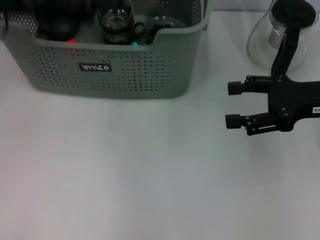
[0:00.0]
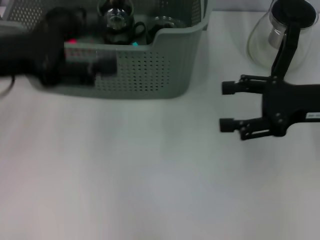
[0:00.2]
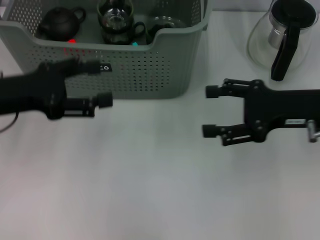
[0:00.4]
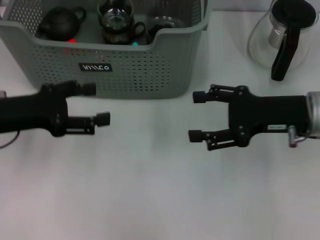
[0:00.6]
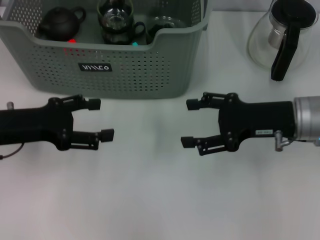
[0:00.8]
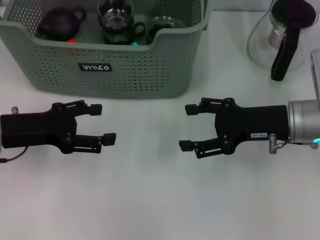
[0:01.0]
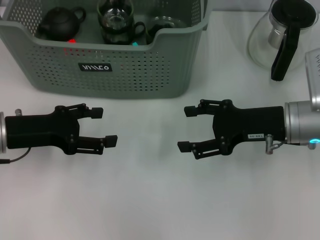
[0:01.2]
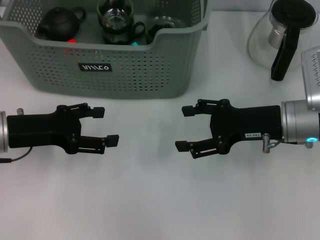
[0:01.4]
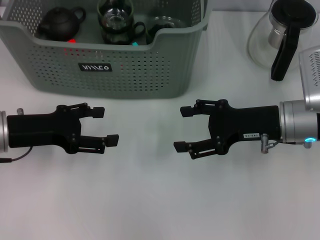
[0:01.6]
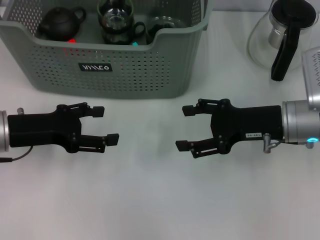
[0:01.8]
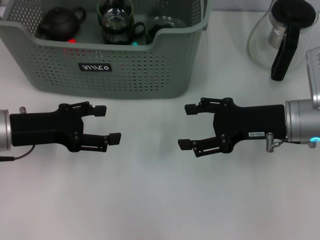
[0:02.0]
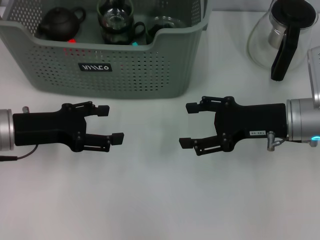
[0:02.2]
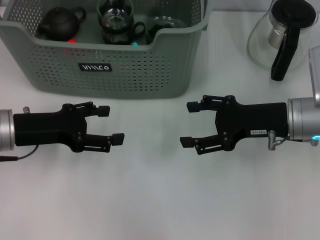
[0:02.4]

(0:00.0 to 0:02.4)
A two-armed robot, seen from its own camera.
Task of the whole recording: pick up the teacup on the table and place it into the storage bin, pick up the block on the table and place it into the storage bin.
0:00.0 - 0:01.2: The left gripper goes roughly 15 cm downward, while the right gripper moves downward and to the left, approximately 10 cm.
0:01.2 - 0:02.4: Both grippers stay put.

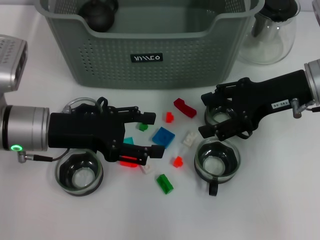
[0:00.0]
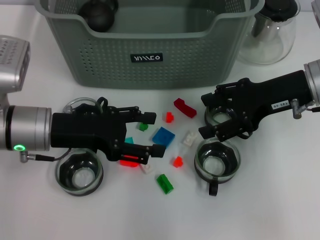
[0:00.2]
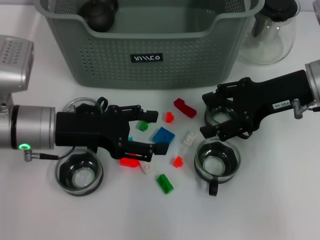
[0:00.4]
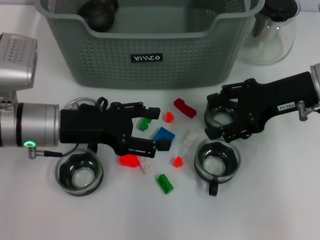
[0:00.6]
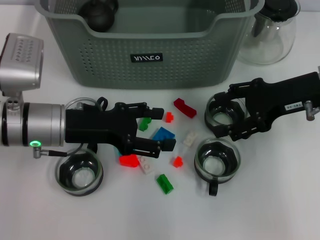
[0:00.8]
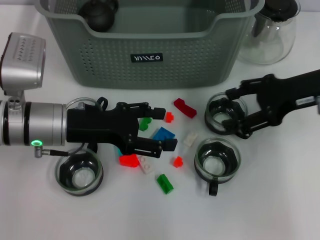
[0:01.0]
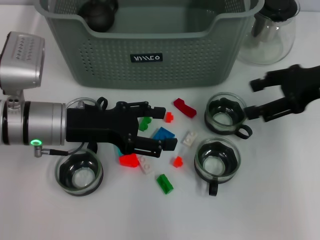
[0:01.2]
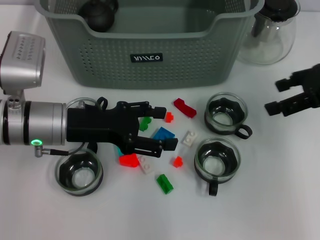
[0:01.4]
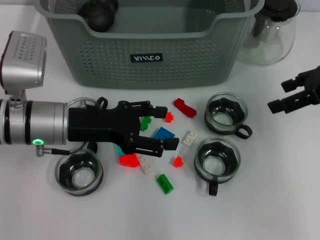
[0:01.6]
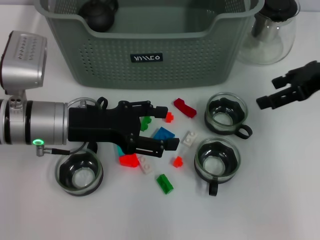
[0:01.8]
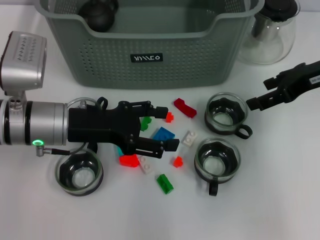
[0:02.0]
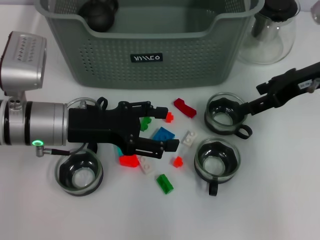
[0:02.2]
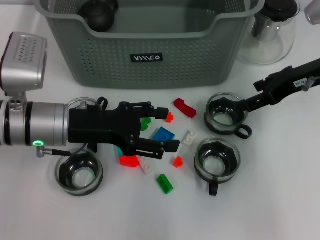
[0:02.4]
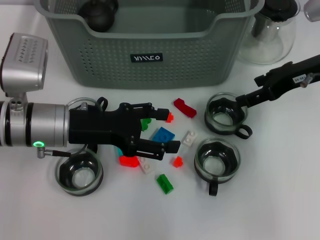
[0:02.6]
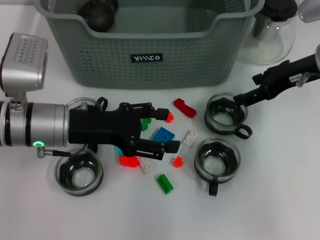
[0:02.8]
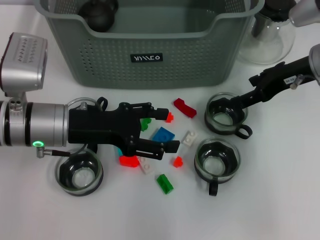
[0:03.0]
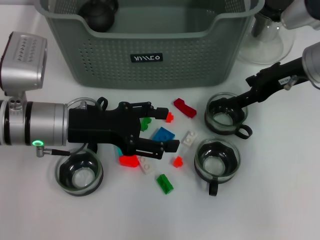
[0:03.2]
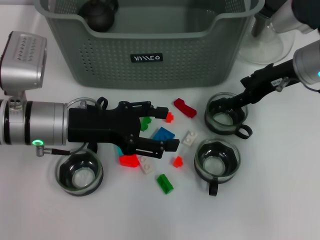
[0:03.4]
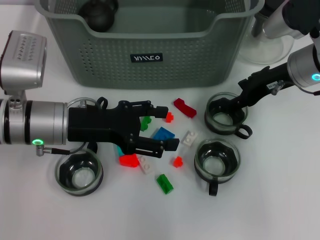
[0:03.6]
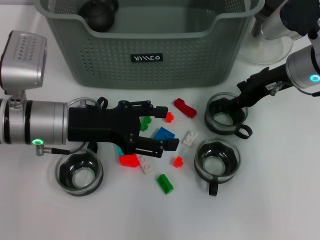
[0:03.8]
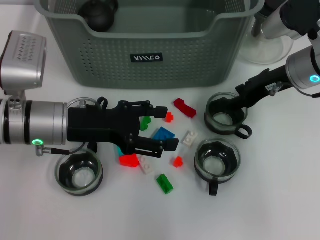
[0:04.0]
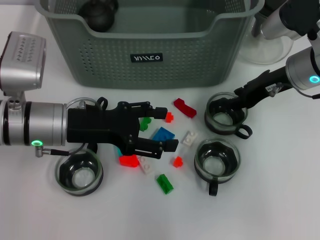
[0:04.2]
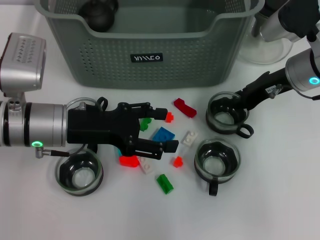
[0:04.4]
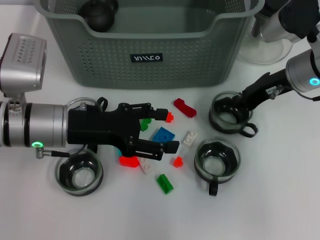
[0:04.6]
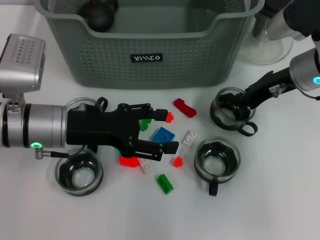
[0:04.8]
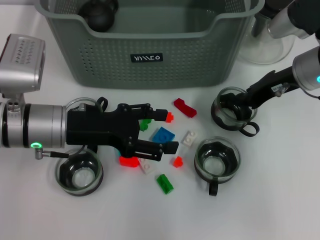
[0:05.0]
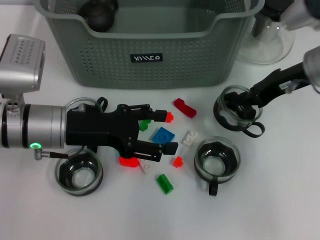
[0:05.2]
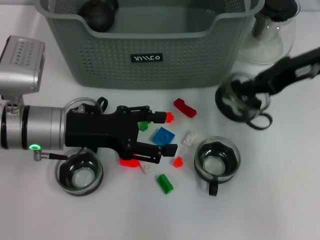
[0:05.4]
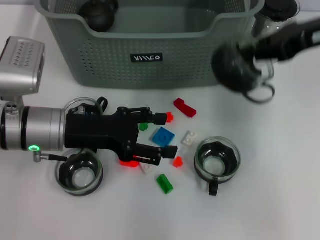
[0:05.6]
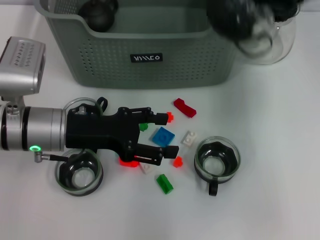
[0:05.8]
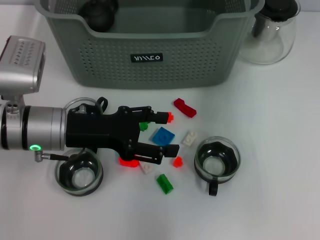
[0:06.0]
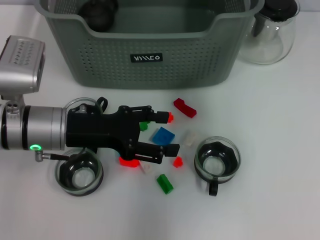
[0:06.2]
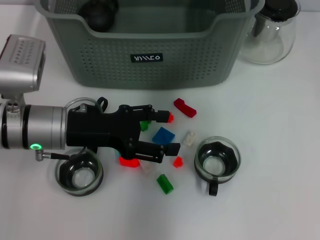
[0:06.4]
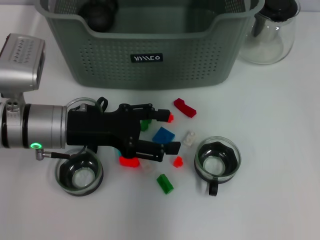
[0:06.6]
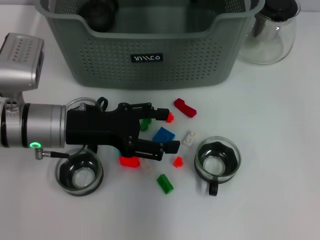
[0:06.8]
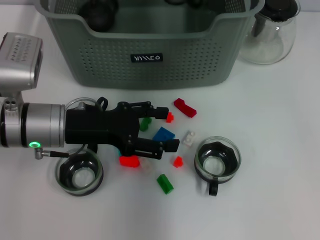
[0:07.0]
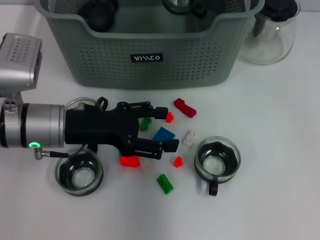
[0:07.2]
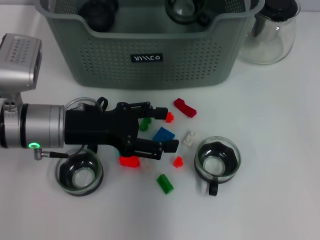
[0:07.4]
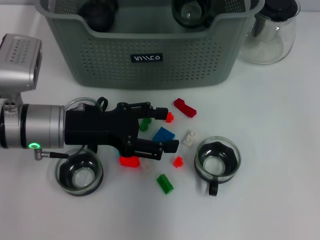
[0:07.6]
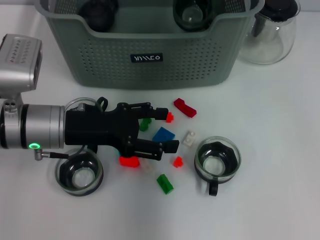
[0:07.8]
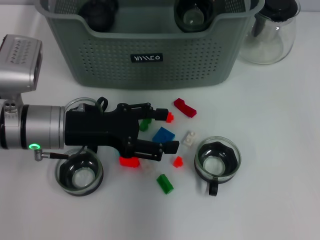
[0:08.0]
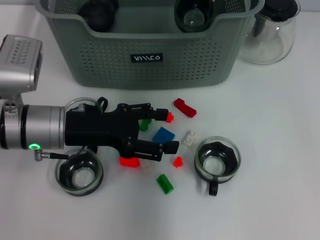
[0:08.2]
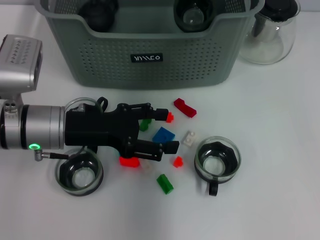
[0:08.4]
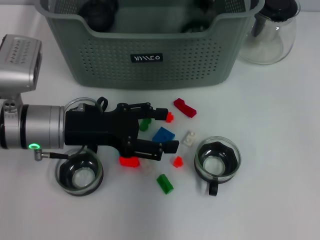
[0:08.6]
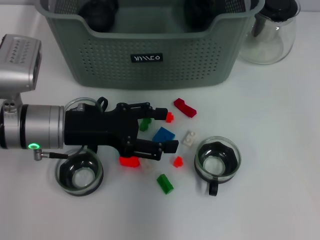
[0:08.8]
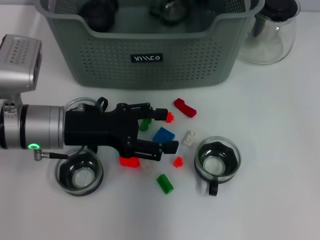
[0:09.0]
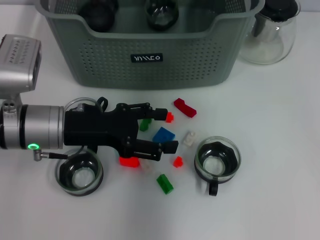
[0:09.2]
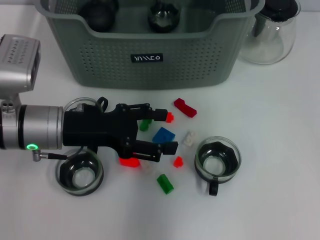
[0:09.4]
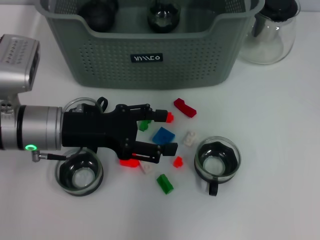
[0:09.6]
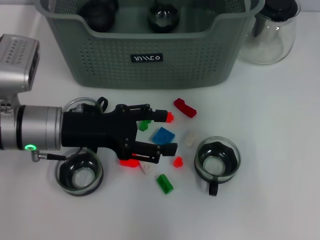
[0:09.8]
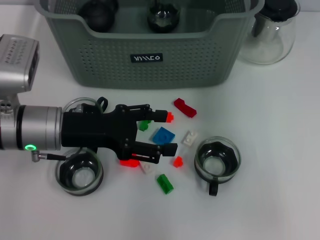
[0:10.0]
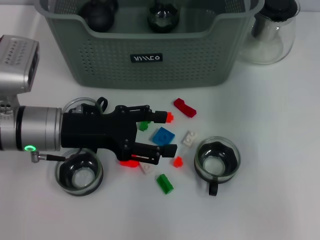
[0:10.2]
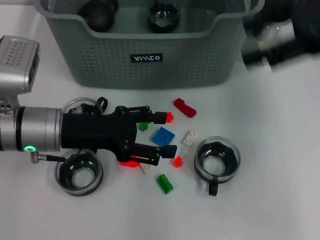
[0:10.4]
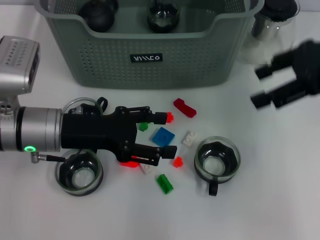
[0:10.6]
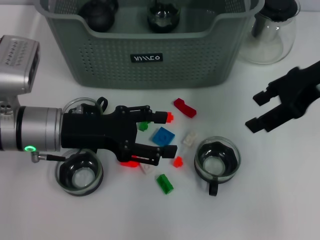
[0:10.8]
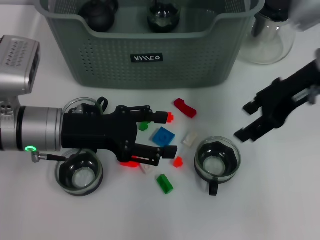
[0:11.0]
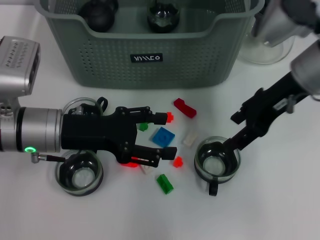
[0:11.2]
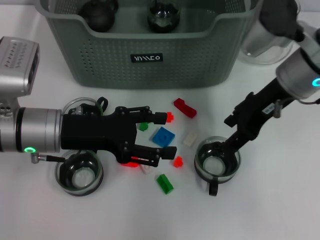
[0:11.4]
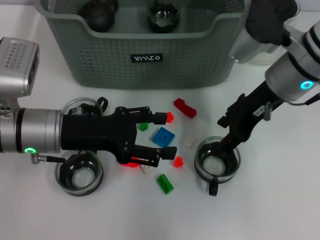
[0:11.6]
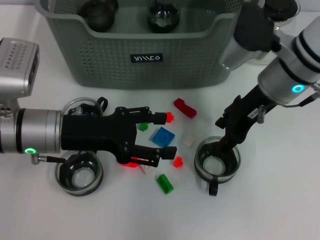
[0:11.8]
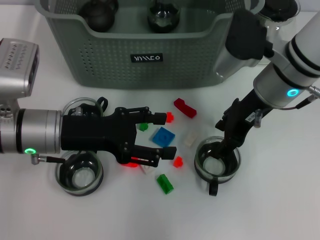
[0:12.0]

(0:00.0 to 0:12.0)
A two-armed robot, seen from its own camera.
Task of the whole recording: pick up the teacup on the table and place it into the storage bin, pick up the block on the table and place it into the storage bin.
Step, 0:00.0 - 0:04.6: Grasp the cup with right gripper.
Step, 0:04.8 - 0:08.8: Place the cup in the storage box with right gripper.
0:00.0 - 0:01.6: The right gripper travels to the right by approximately 10 cm.
0:01.6 - 0:03.0: The right gripper travels to the left by some 5 cm.
0:03.0 - 0:04.4: The right gripper closes up.
0:04.4 - 0:06.0: The right gripper goes some 20 cm upward, and closes up.
0:06.0 - 0:07.6: The right gripper goes approximately 20 cm to the left, downward and forward.
0:07.6 - 0:09.0: Both grippers stay put.
0:09.0 - 0:10.4: The right gripper heads to the right and backward, covering approximately 20 cm, and opens.
0:10.4 - 0:12.0: The right gripper is displaced downward and to the left by roughly 15 cm.

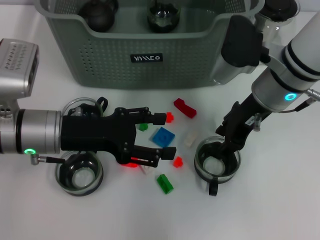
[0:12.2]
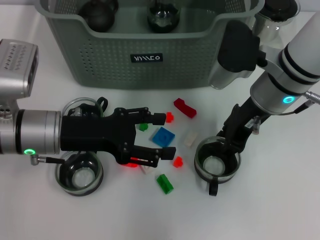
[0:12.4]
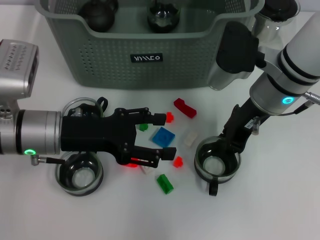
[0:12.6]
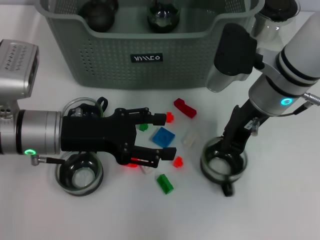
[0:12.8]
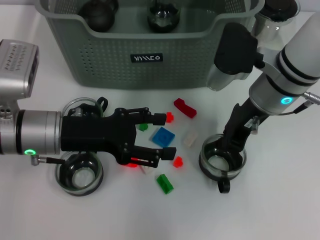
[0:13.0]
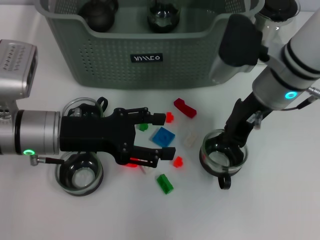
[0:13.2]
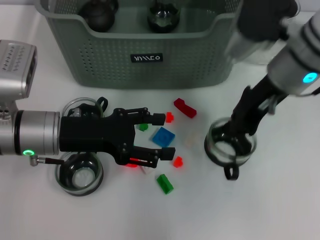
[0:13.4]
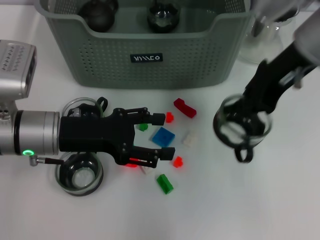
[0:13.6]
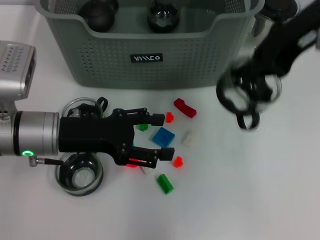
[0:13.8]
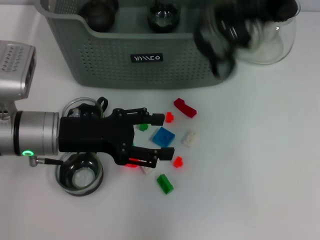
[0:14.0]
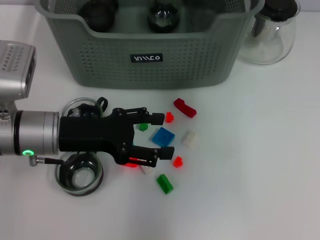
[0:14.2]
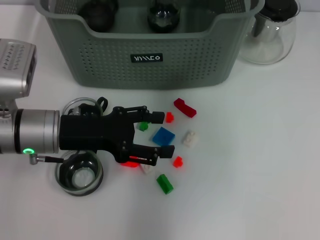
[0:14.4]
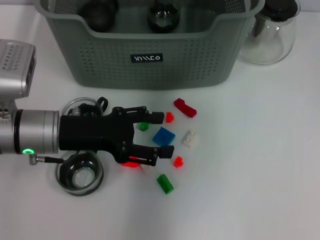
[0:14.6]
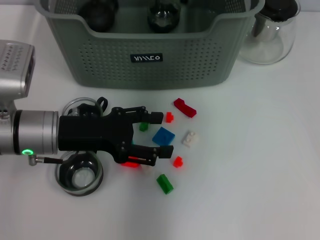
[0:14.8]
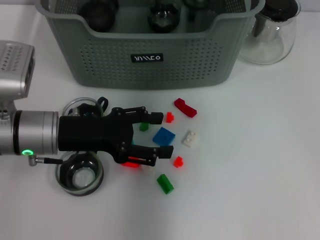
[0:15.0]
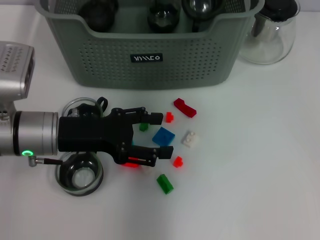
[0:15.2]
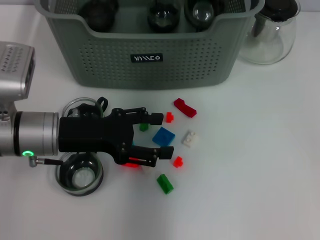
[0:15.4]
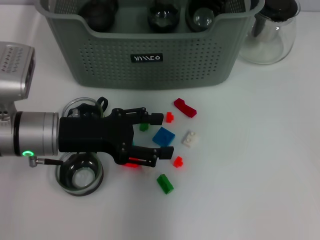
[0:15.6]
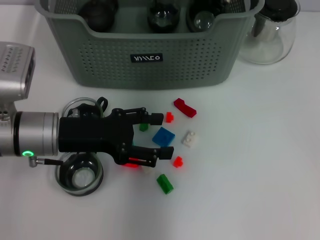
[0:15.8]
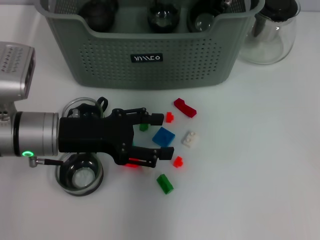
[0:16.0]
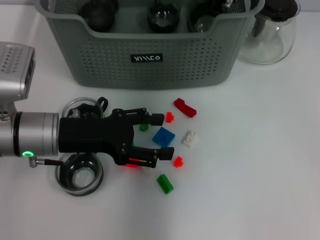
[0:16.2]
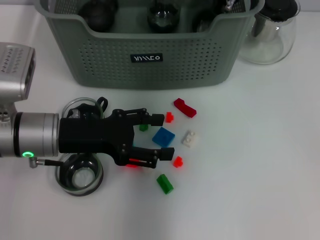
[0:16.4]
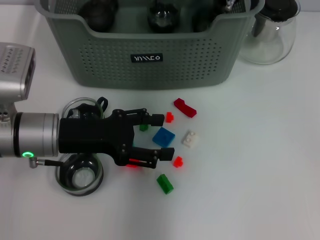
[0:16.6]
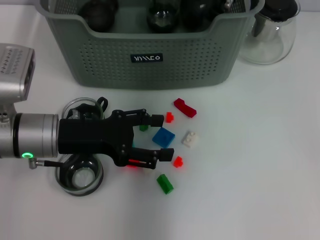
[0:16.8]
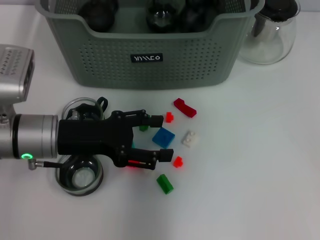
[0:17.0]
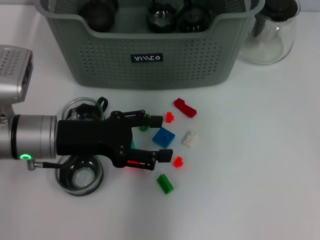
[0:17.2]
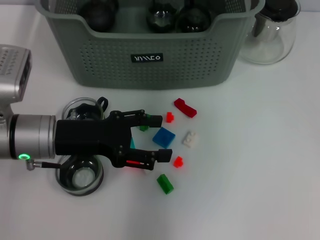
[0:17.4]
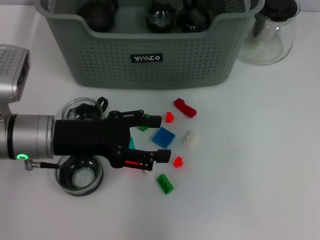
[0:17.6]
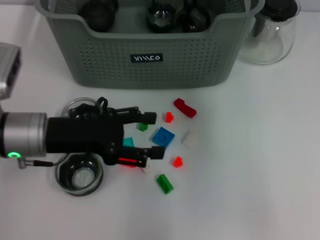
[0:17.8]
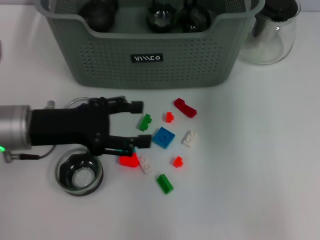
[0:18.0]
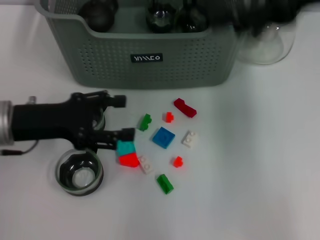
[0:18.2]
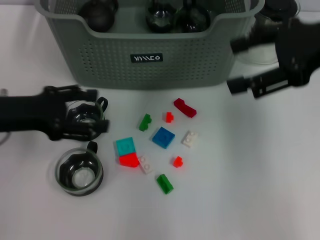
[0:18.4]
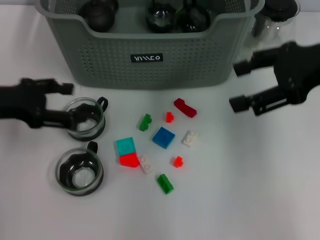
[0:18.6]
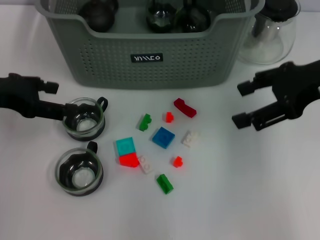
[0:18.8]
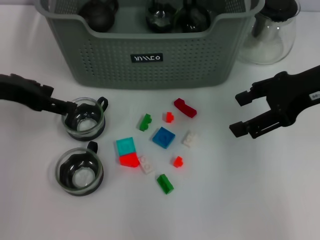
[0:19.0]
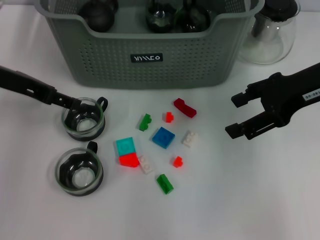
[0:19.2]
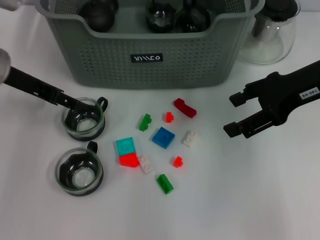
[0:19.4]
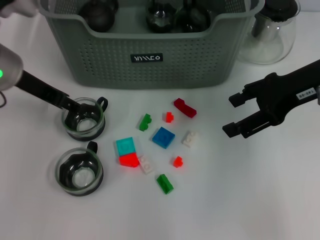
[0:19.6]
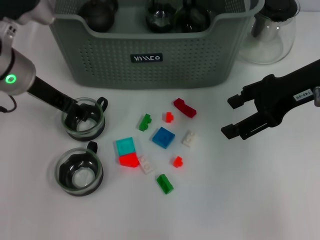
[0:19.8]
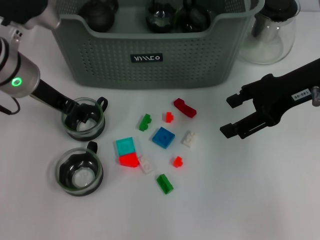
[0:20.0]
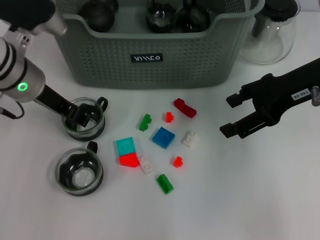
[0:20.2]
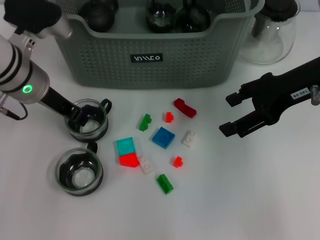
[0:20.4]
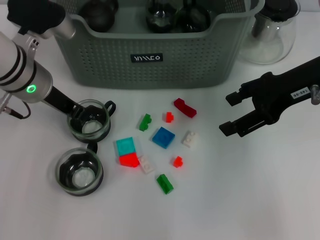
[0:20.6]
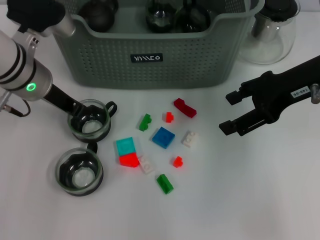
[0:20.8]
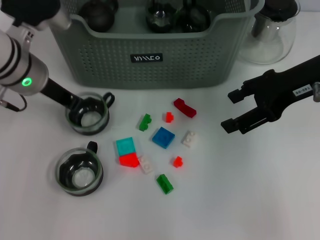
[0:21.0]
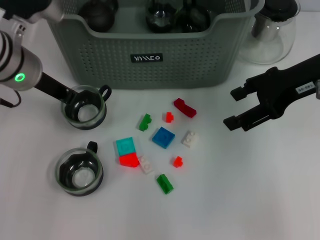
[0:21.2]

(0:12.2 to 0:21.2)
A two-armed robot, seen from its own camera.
Task of the whole recording: pick up the teacup on the table and place it into the storage bin, pick up the block on the table and place it into the storage bin.
Step, 0:13.0 - 0:16.4: Place the cup in the storage box with right gripper.
Step, 0:16.6 - 0:20.8: Grasp the cup with left gripper.
0:12.2 - 0:13.8: The right gripper shifts some 15 cm upward, and closes up.
0:13.8 - 0:15.2: The right gripper shifts approximately 15 cm forward and to the left.
0:15.2 - 0:16.6: The grippers stay close to where they were, moving slightly.
0:16.6 - 0:18.2: The left gripper is displaced to the left by some 5 cm. The right gripper travels backward, to the right and upward by some 20 cm, and opens up.
0:18.2 - 0:19.8: The left gripper goes about 10 cm forward, while the right gripper is displaced downward by about 10 cm.
0:19.8 - 0:21.2: The left gripper closes up.
